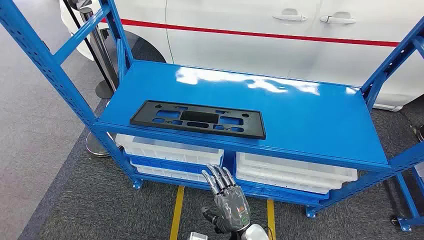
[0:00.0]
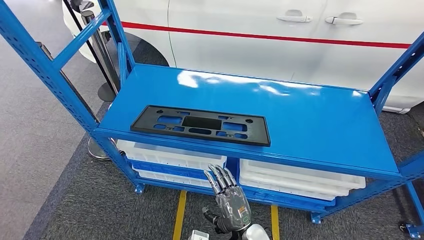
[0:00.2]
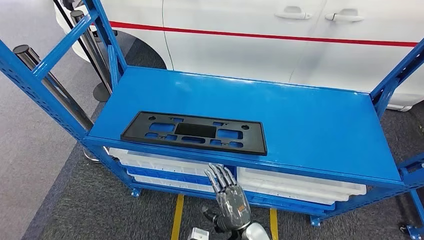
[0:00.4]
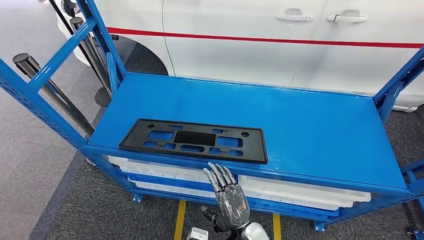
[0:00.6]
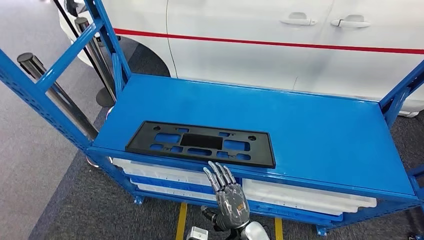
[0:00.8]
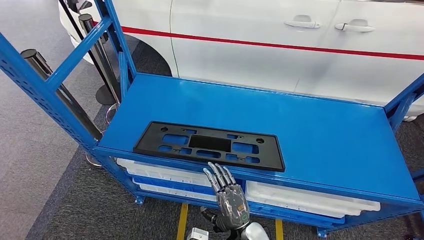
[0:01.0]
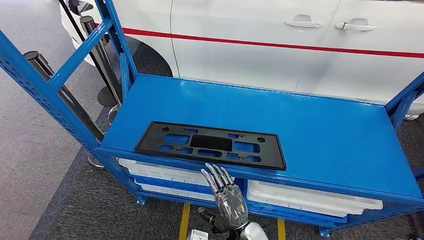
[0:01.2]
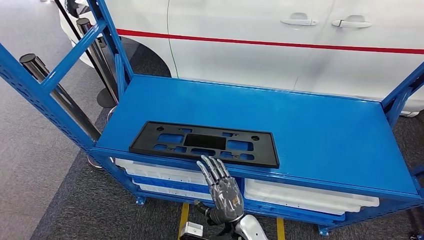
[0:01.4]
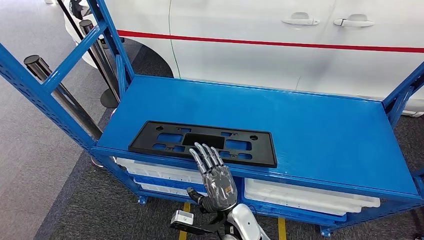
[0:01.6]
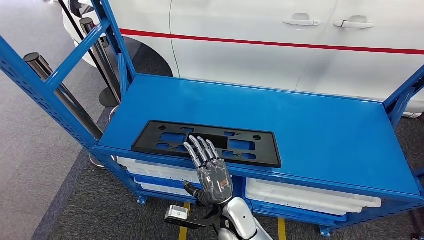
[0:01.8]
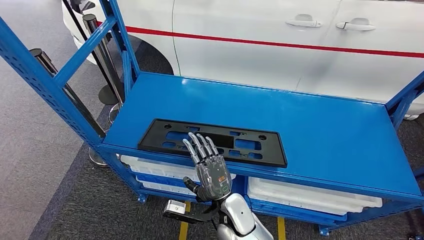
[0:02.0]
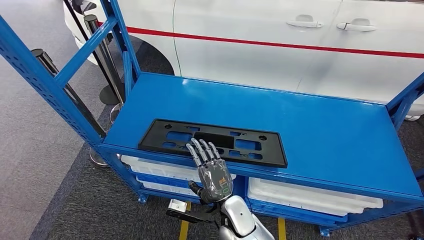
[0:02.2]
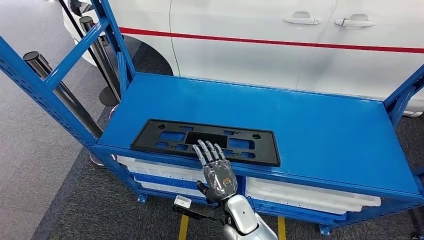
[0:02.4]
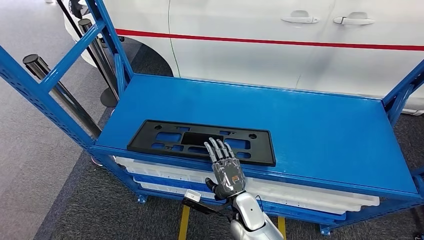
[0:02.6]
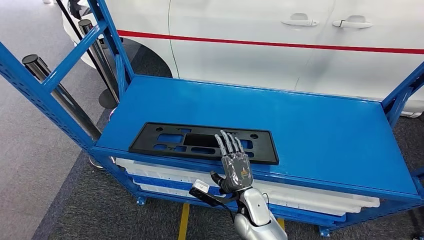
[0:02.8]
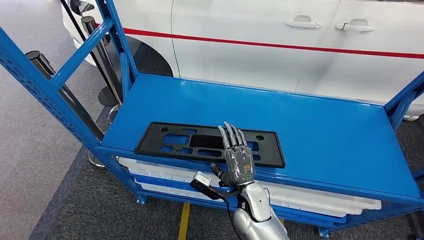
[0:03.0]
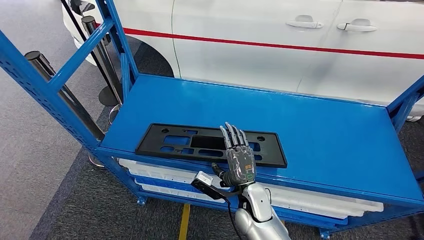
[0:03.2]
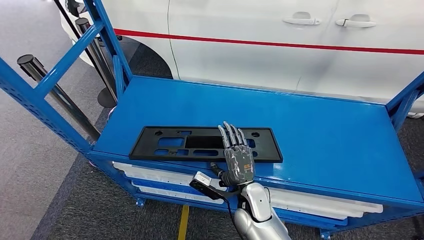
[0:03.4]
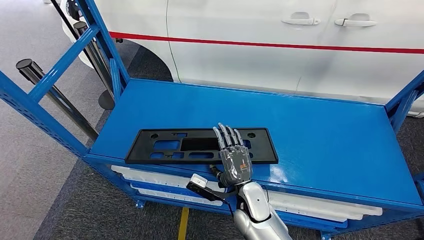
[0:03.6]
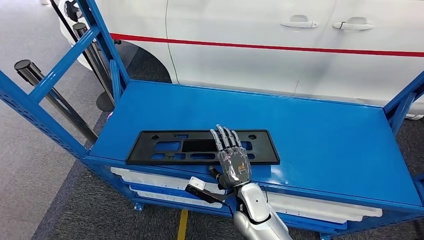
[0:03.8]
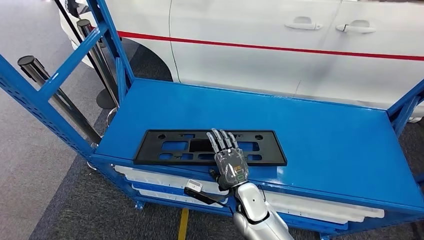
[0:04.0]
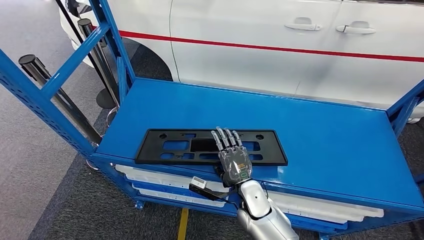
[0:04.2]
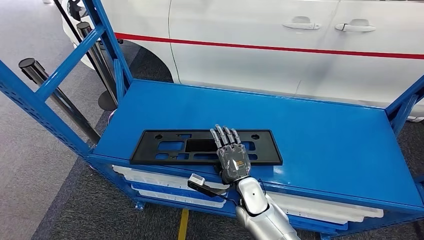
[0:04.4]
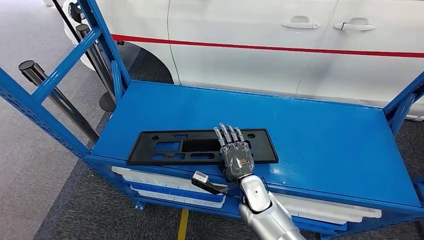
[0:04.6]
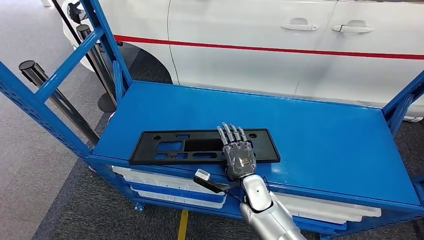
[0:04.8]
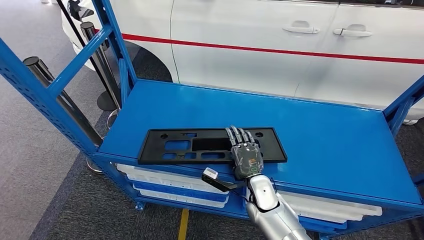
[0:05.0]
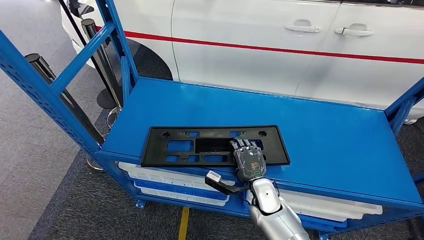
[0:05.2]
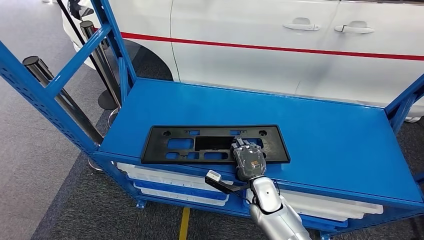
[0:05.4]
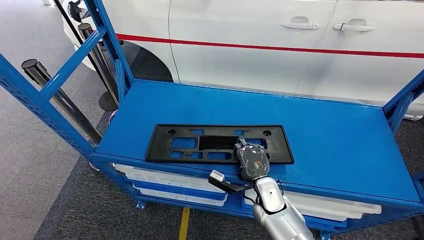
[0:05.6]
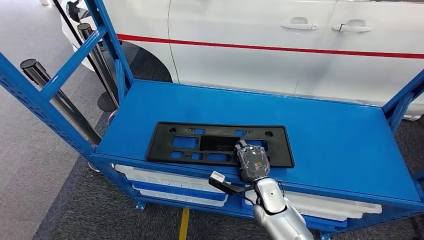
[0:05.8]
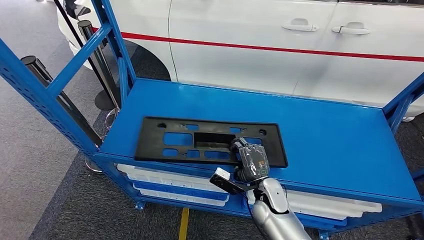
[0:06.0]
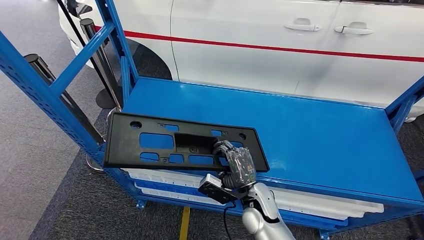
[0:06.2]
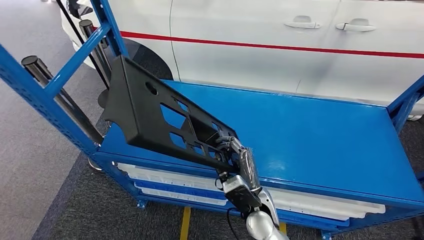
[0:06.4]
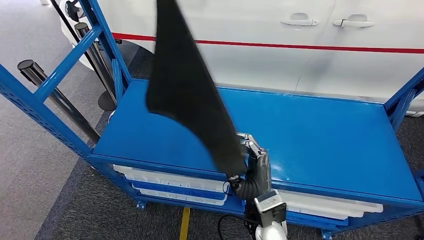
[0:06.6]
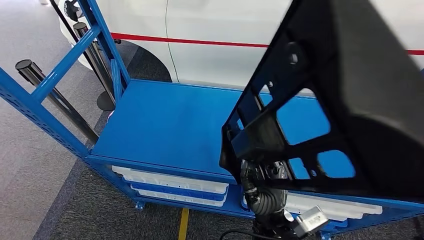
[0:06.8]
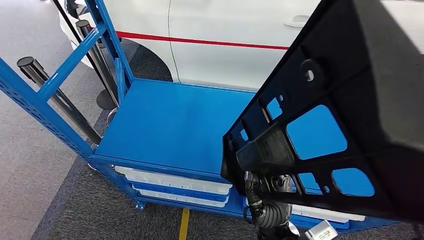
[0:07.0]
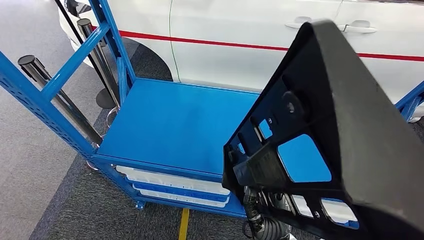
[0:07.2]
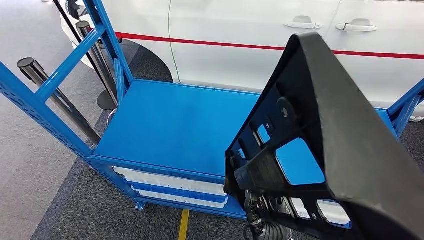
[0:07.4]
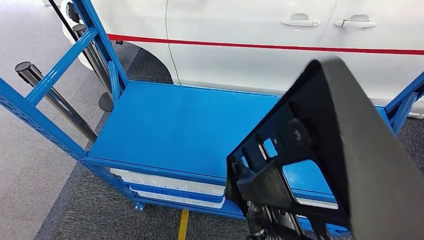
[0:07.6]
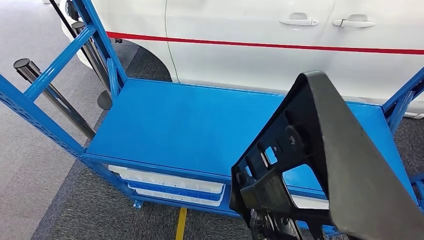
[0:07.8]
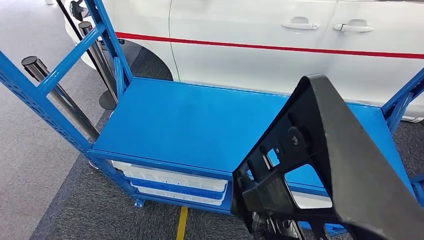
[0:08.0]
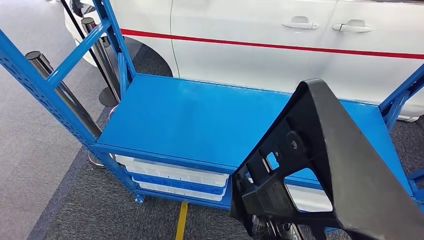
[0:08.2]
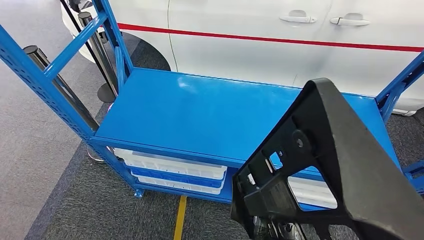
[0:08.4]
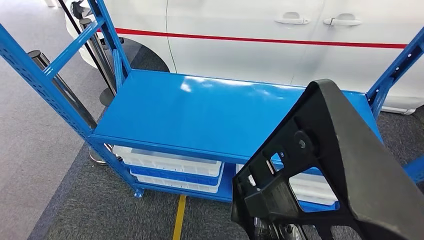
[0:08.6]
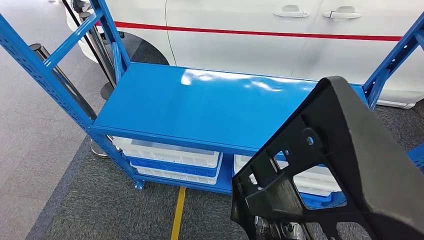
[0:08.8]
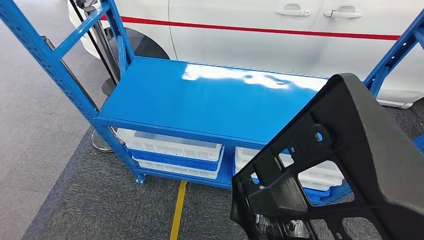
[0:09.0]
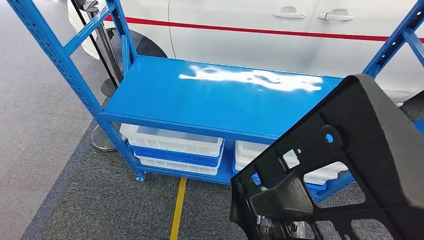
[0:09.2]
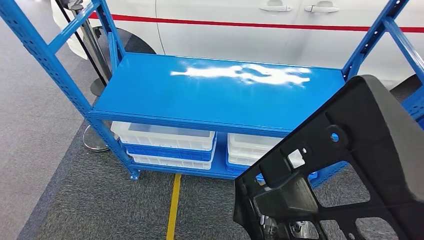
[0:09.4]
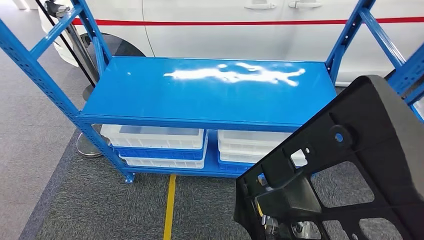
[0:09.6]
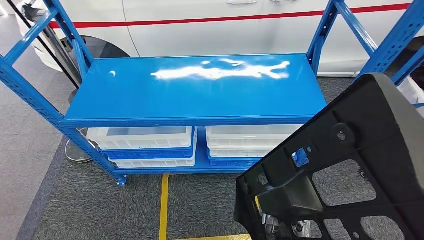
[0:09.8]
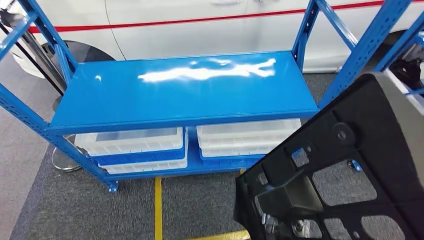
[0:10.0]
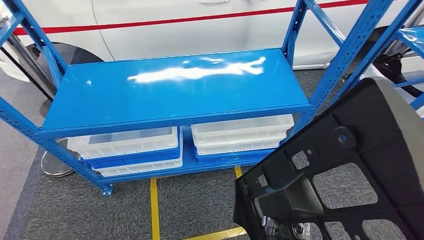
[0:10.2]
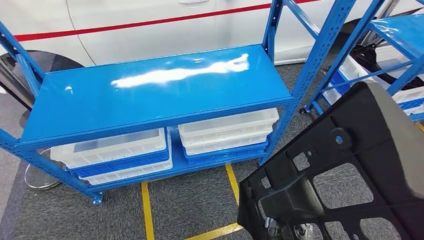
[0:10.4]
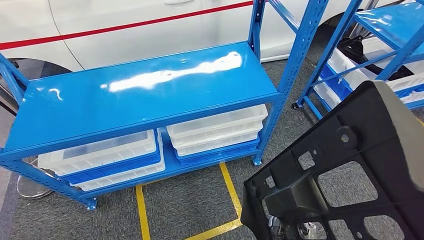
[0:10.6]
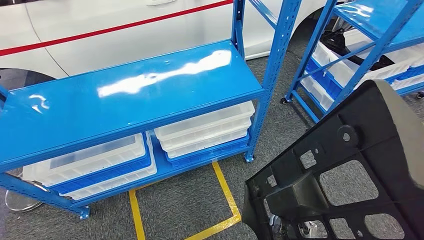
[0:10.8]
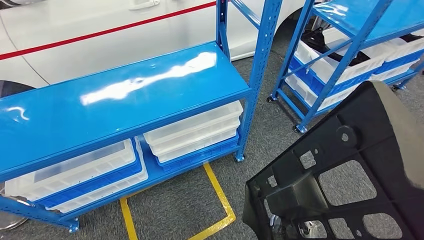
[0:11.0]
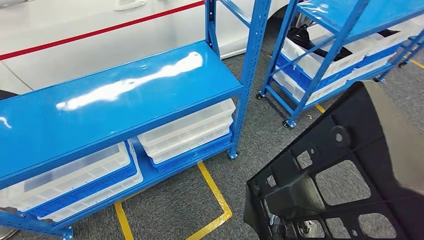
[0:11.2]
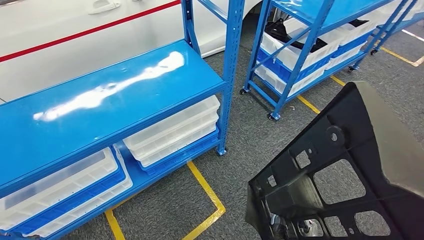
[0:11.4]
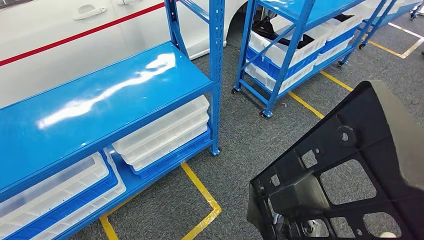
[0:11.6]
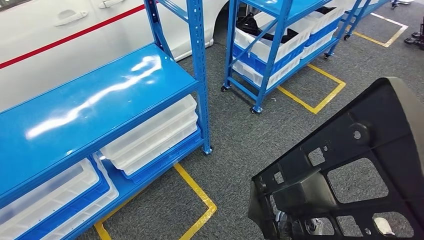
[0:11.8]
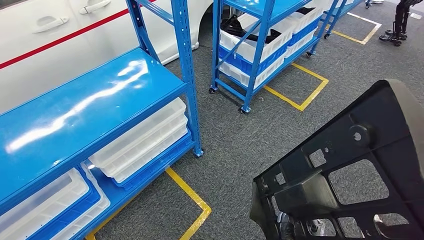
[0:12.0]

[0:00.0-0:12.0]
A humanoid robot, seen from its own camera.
Step, 0:00.0 to 0:09.2: Pick up the large material from the shelf.
0:01.6 to 0:03.0: The right hand goes approximately 5 cm forward.

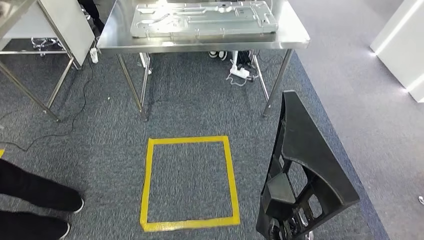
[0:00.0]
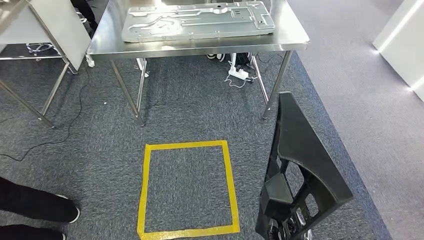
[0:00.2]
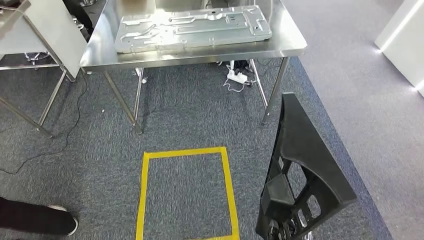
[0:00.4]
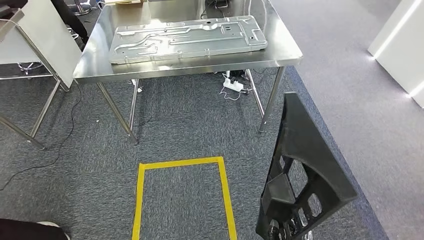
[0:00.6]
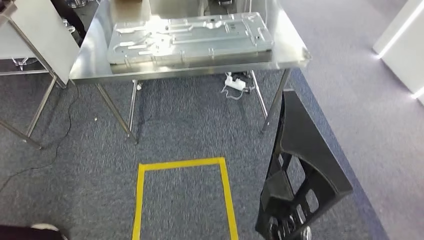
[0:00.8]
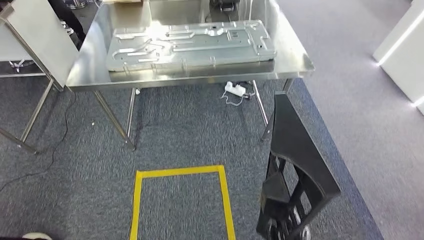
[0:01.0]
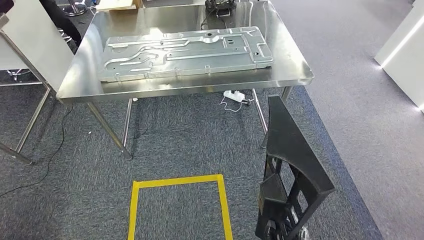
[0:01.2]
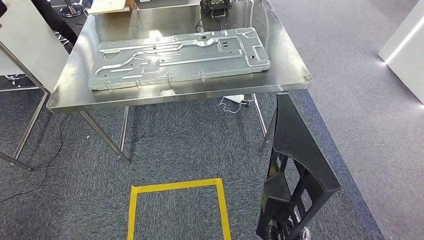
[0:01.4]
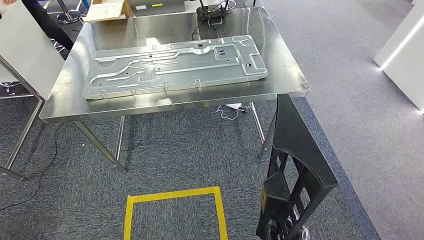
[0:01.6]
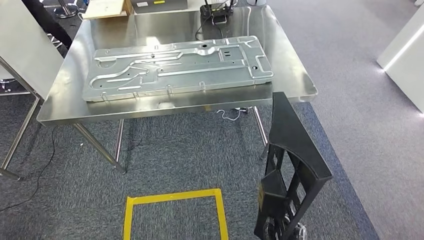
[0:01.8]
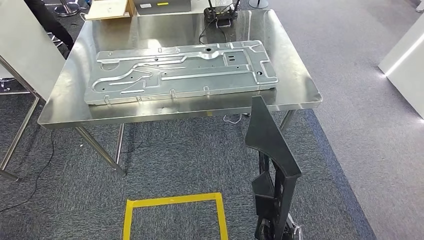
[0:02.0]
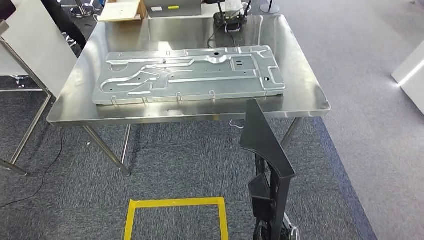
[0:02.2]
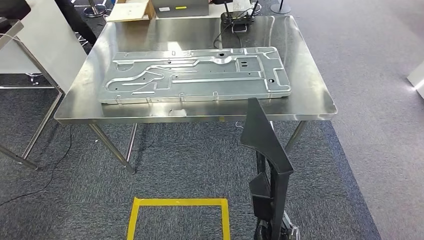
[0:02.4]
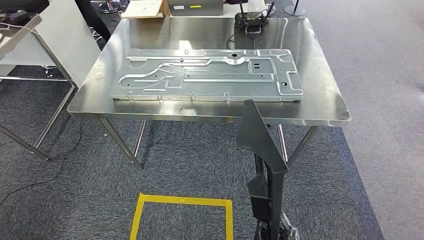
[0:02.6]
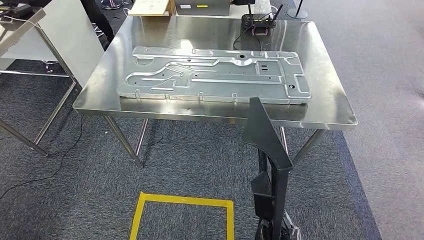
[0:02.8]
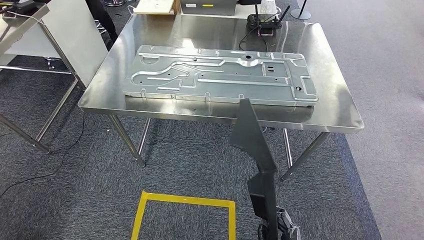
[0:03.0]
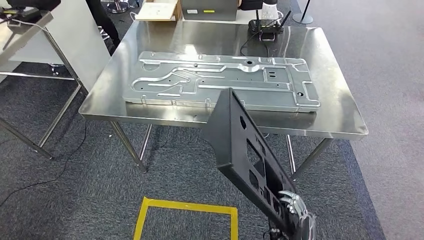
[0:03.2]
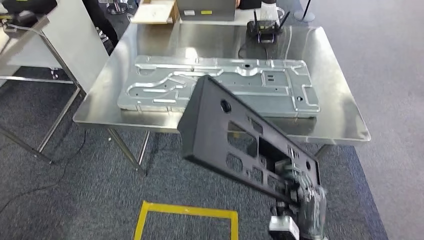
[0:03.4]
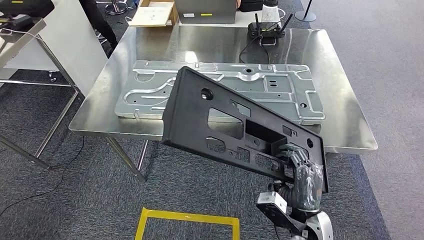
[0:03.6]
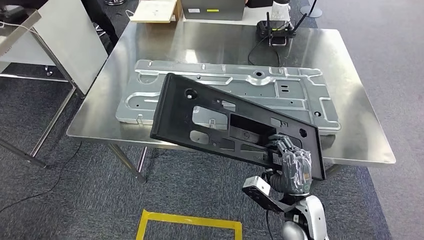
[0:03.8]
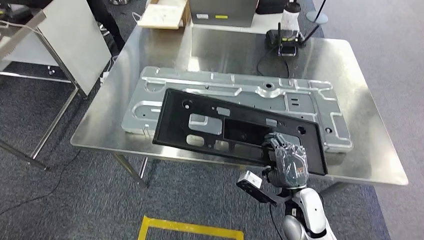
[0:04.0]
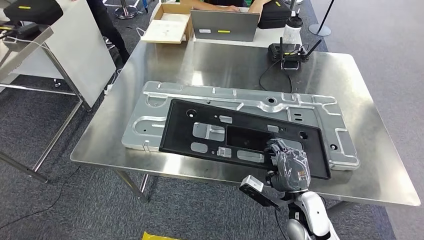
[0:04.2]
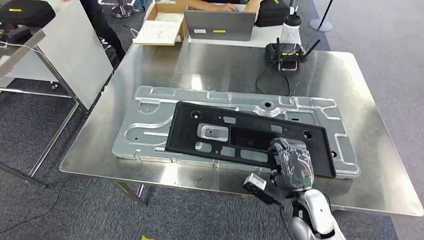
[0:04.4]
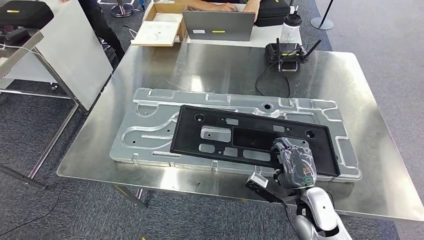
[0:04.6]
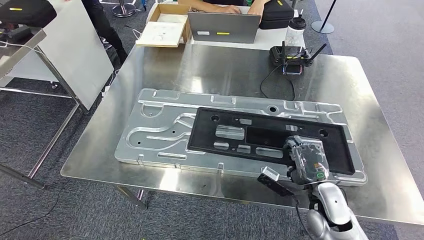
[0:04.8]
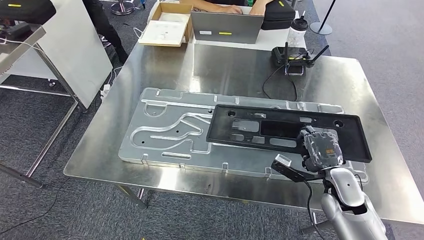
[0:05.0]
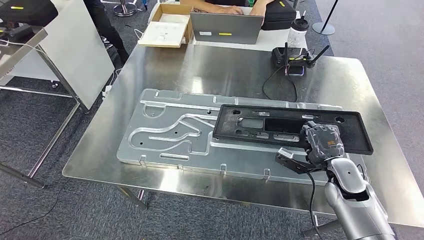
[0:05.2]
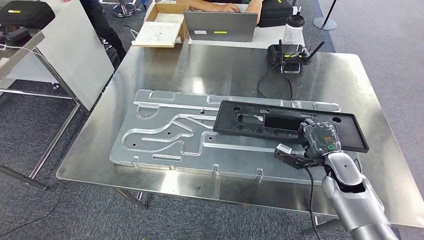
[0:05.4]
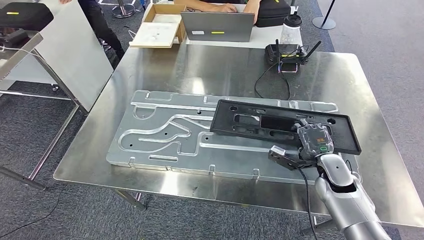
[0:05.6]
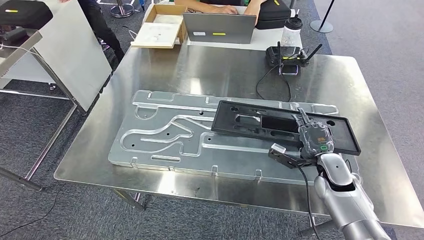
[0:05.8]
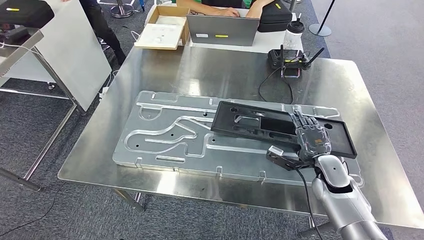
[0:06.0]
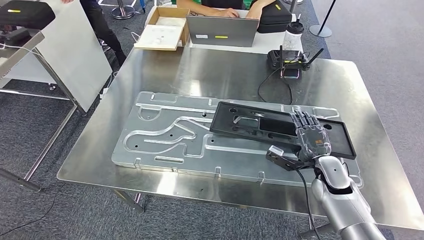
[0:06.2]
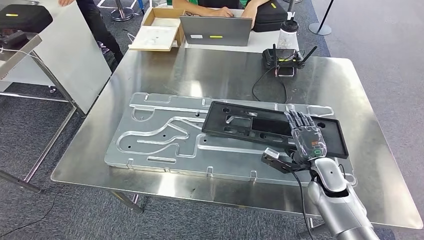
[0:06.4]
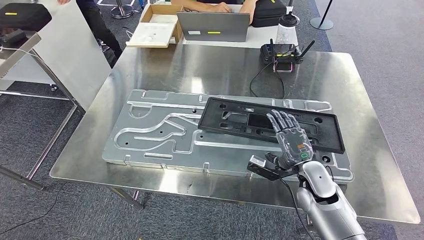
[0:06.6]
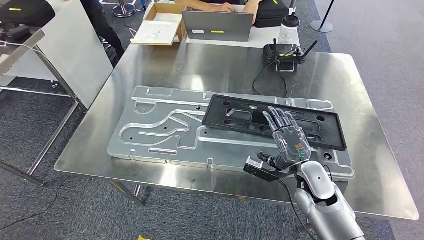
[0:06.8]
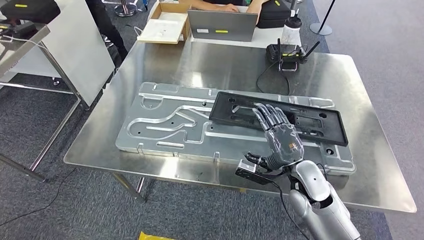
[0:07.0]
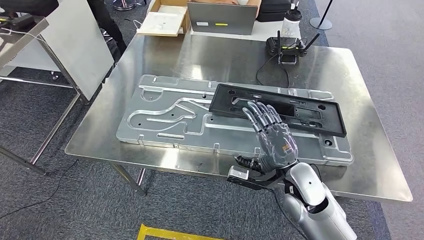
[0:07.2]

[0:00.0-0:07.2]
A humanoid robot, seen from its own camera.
Step, 0:00.0 to 0:02.8: Move the large material to the workbench.
